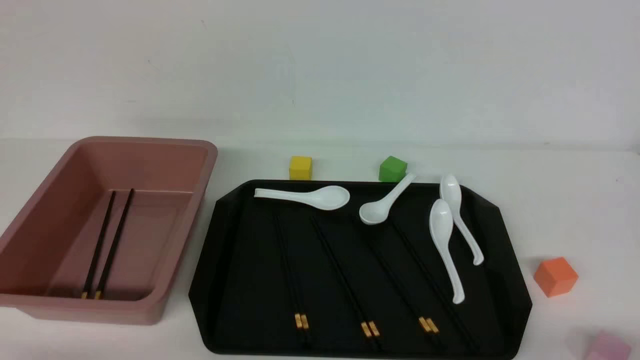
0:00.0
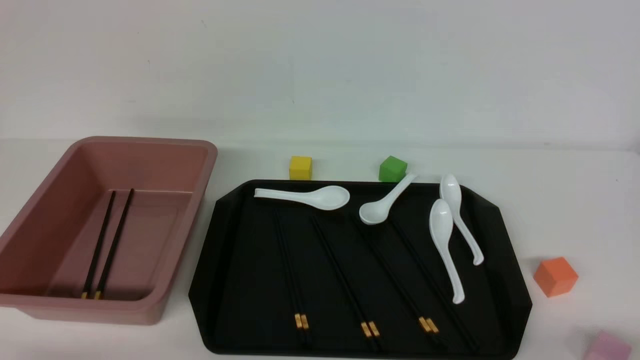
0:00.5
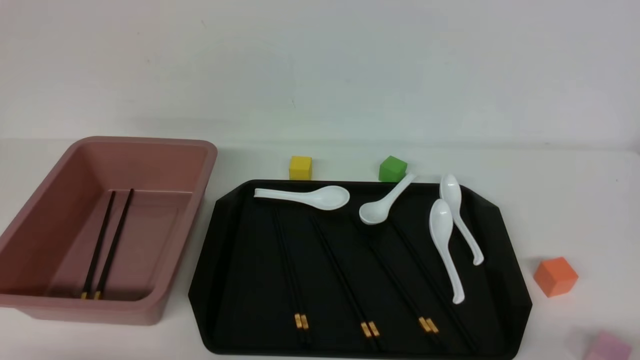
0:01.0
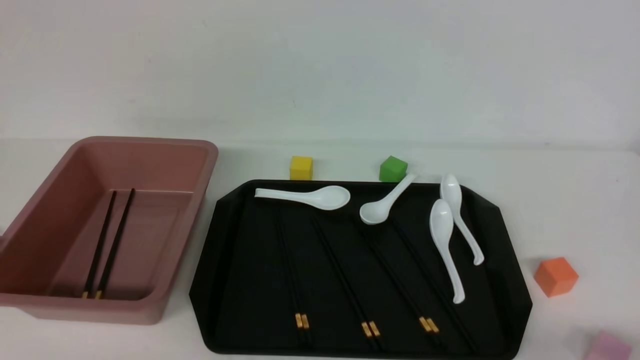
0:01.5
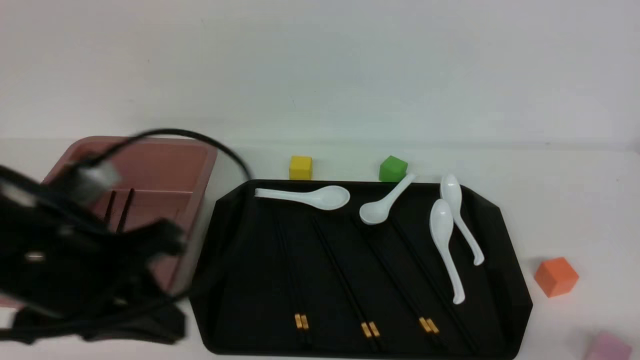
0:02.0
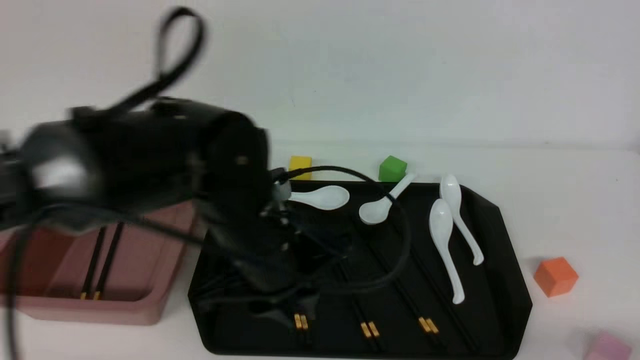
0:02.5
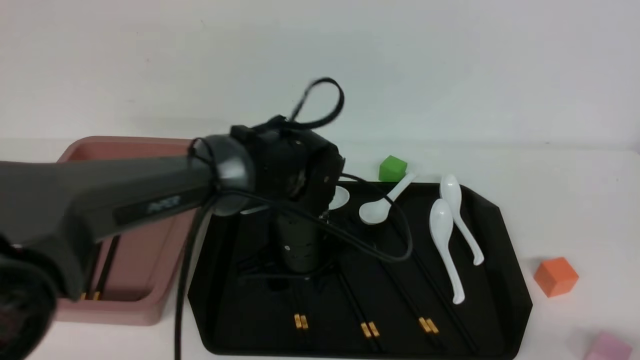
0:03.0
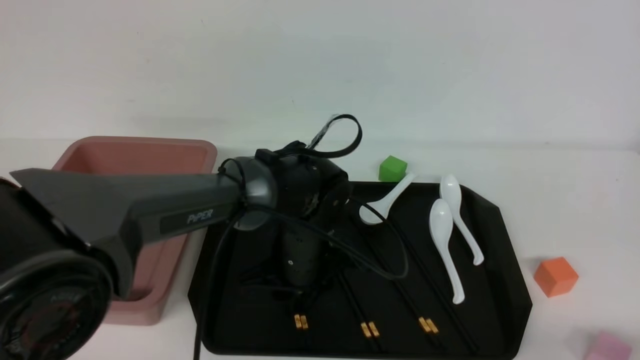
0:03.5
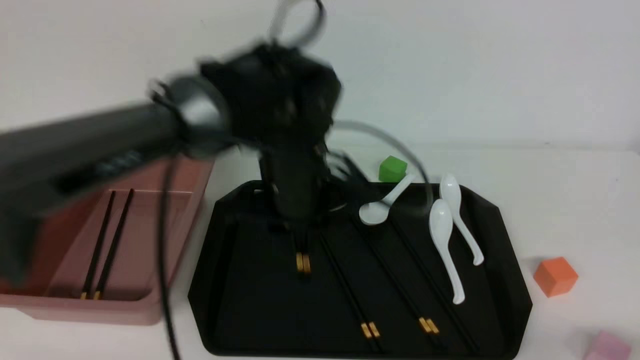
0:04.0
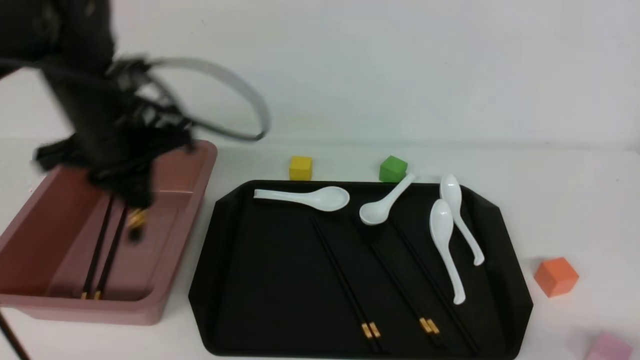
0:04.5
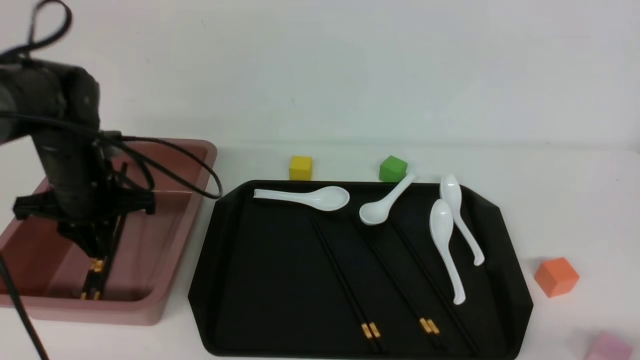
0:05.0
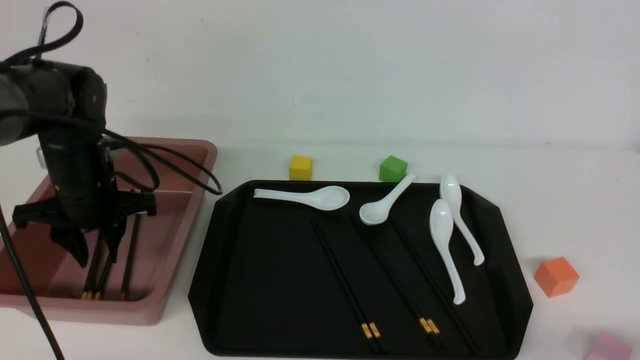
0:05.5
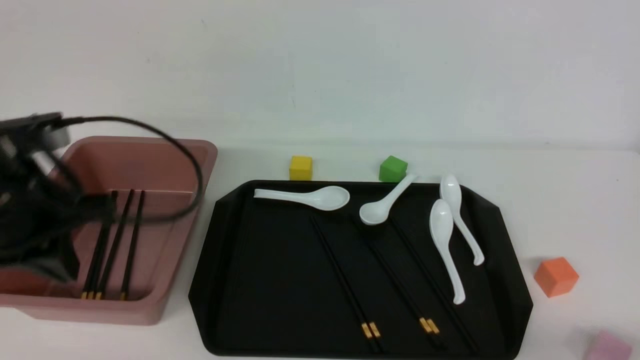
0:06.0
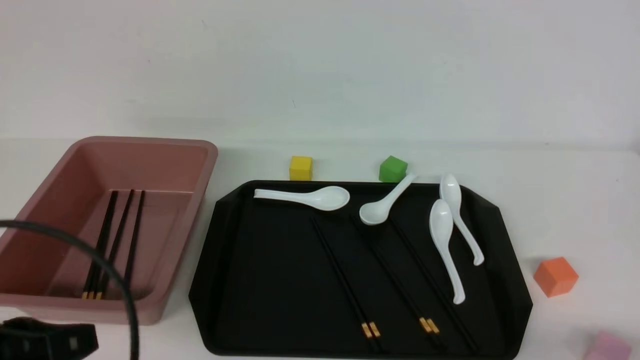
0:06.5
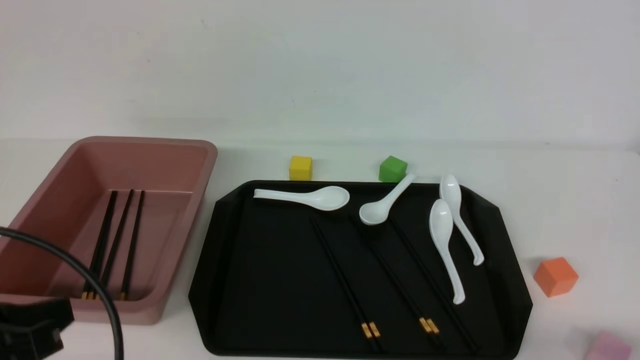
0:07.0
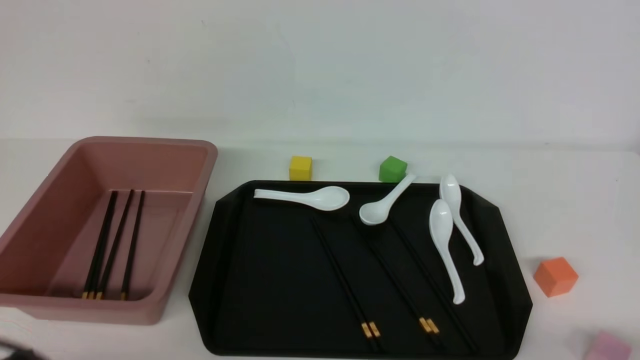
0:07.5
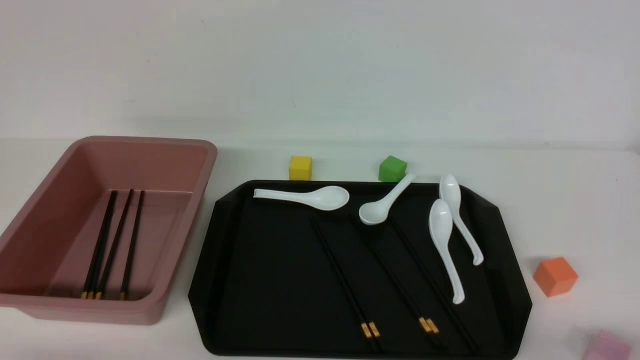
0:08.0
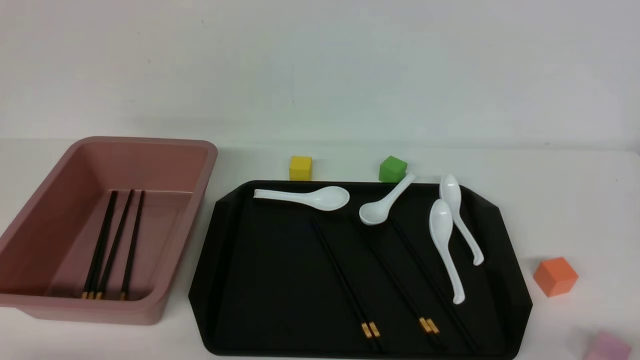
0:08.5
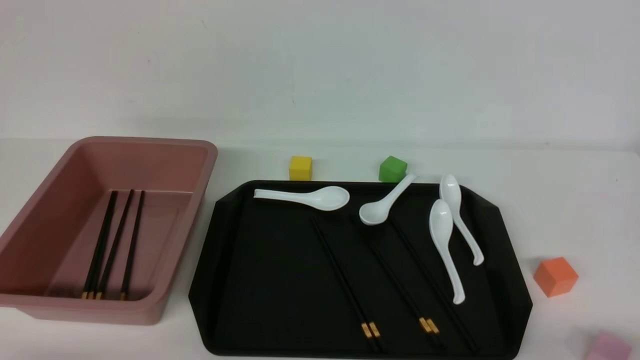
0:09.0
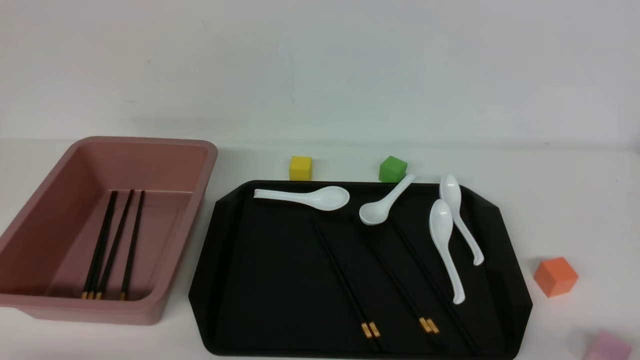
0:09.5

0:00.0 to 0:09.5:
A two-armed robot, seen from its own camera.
Step, 0:00.0 to 0:04.0: use the left arm to grab a pair of chopsticks.
Step, 0:04.5 to 0:05.5: use the left arm to put the chopsticks into the lunch box.
0:00.0 to 0:02.0: The left gripper travels forward, upward and to the right by approximately 20 cm.
0:02.0 to 0:04.0: The left gripper moves forward and to the right, some 20 cm, and opens.
0:04.0 to 0:05.5: The left gripper heads to the left, covering some 20 cm.
0:05.5 to 0:07.5: The left gripper goes about 30 cm backward, and closes.

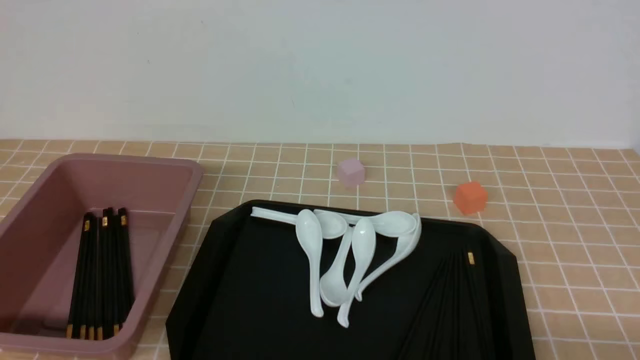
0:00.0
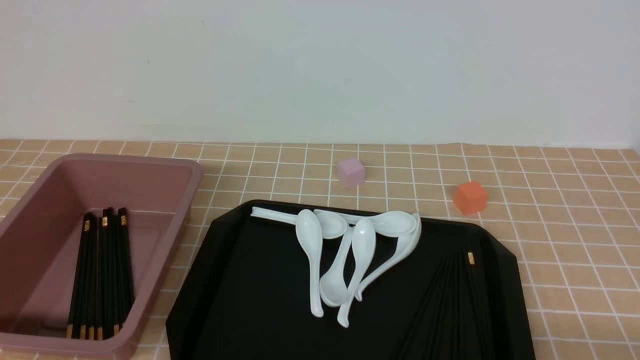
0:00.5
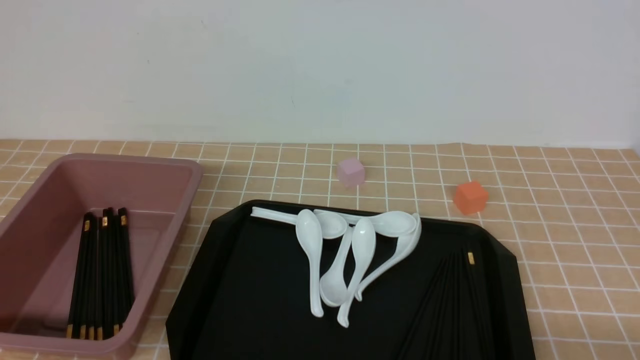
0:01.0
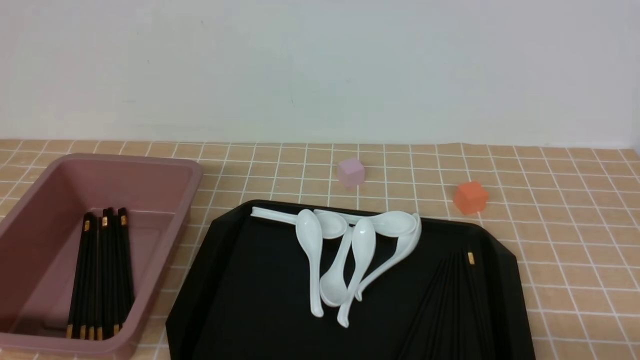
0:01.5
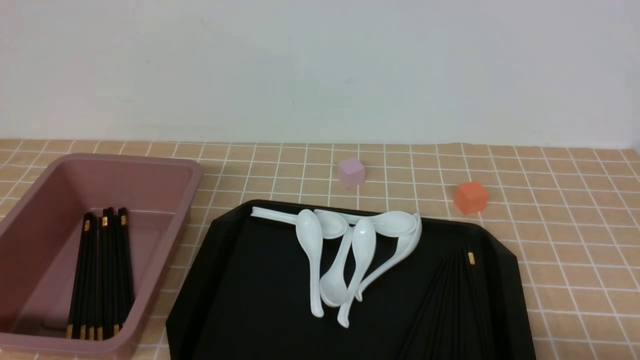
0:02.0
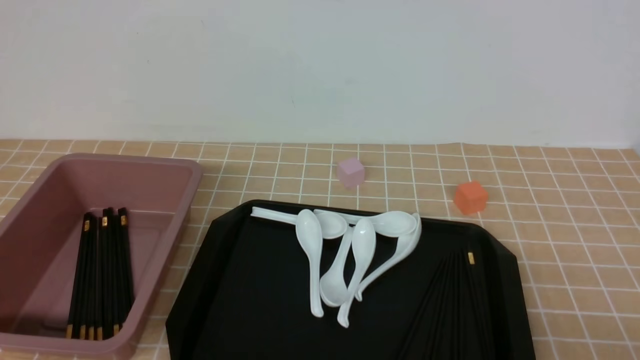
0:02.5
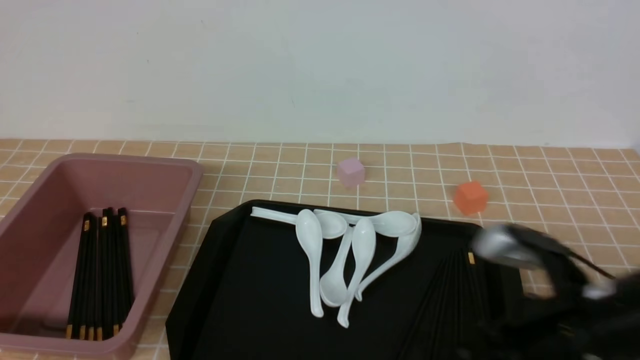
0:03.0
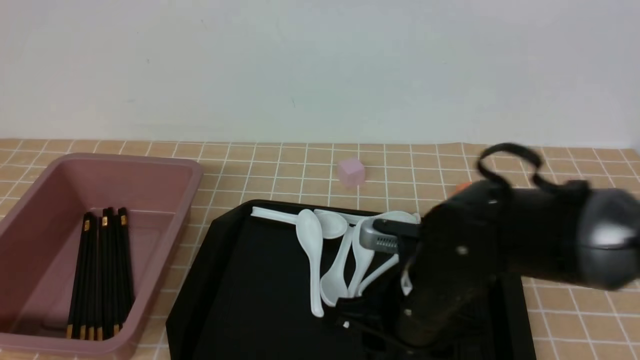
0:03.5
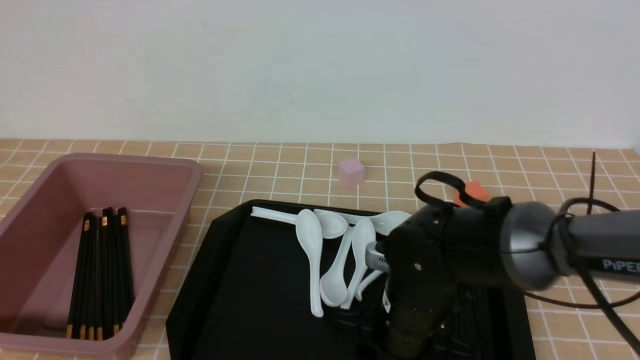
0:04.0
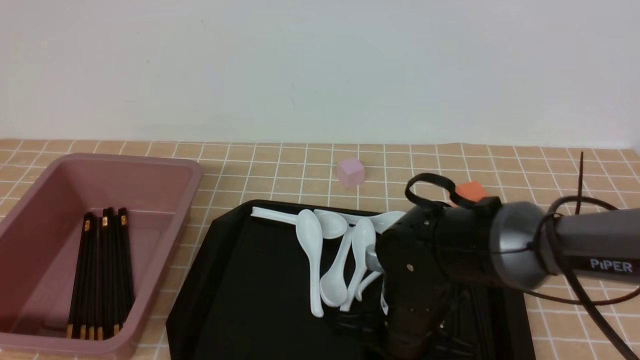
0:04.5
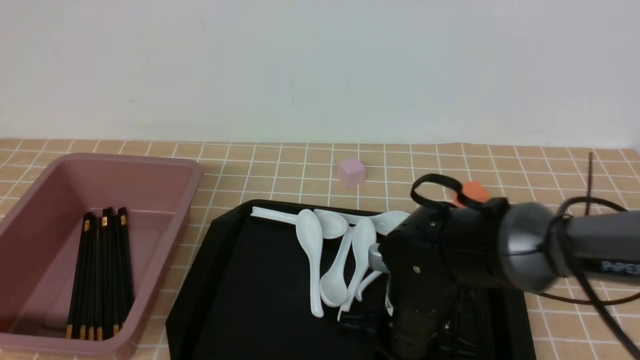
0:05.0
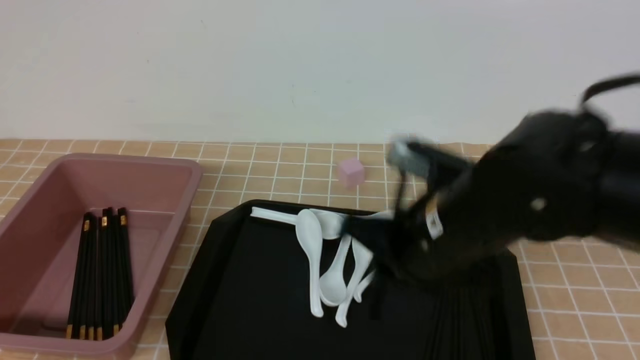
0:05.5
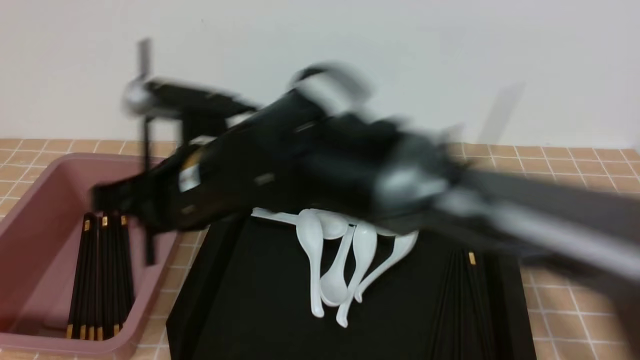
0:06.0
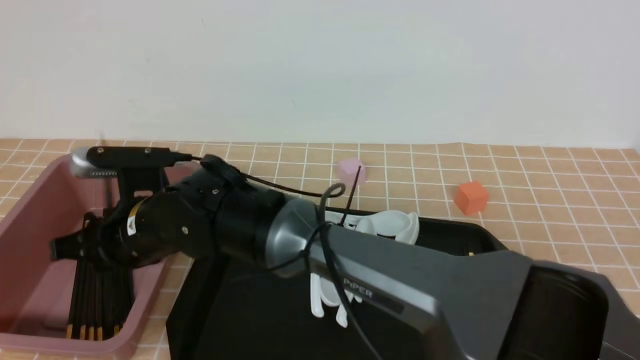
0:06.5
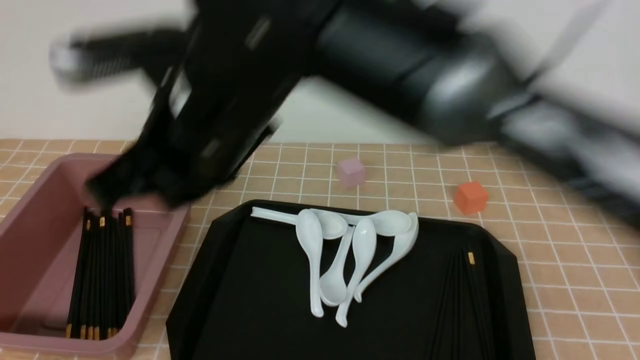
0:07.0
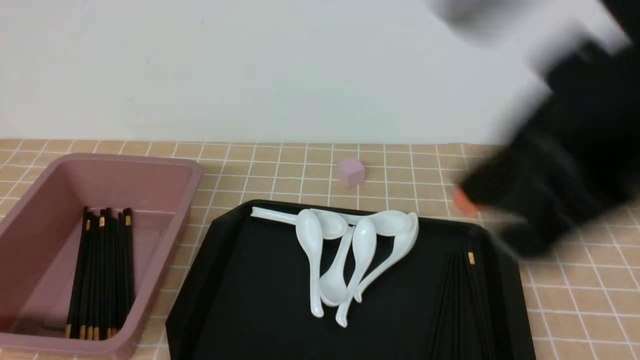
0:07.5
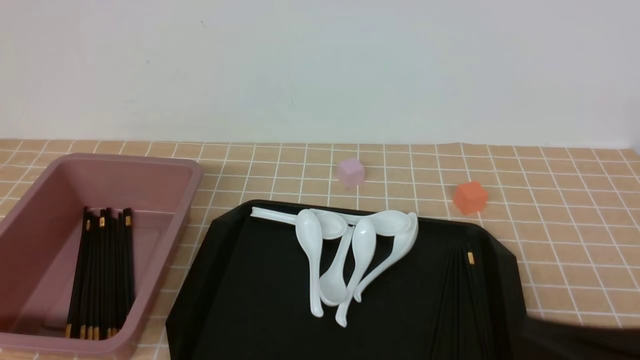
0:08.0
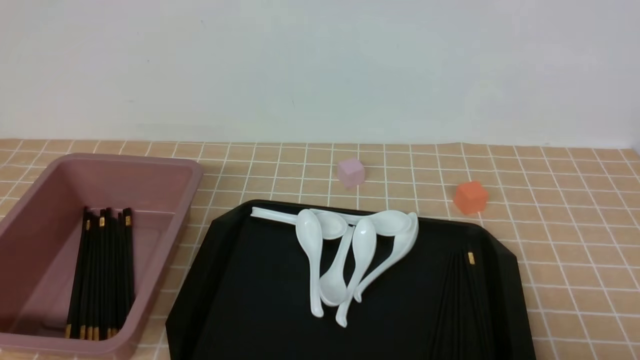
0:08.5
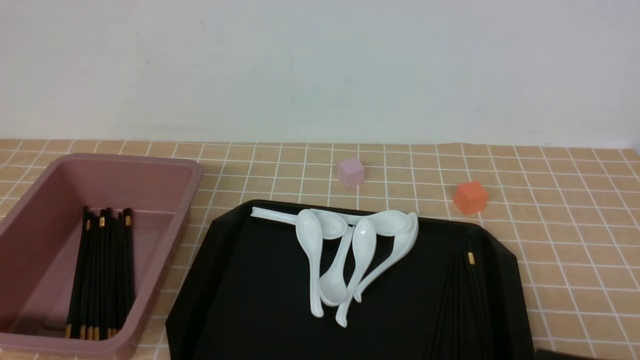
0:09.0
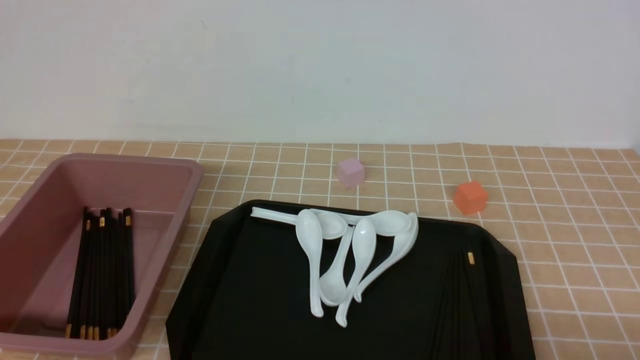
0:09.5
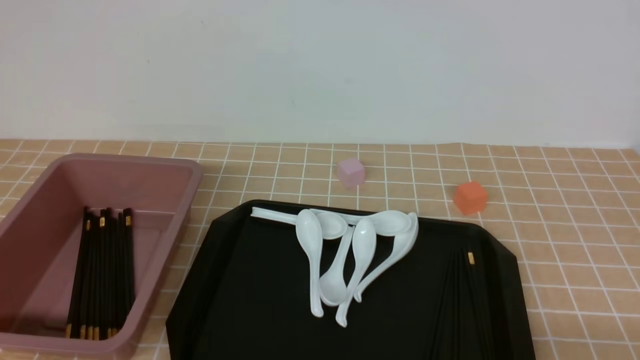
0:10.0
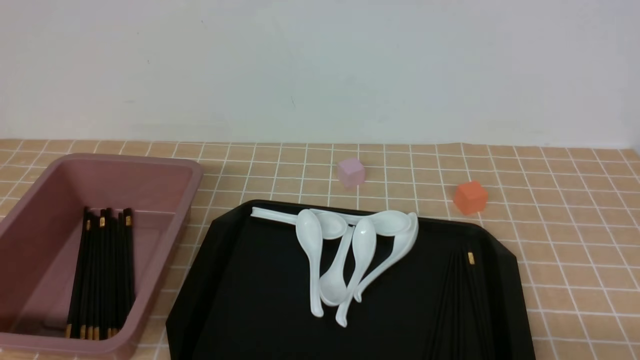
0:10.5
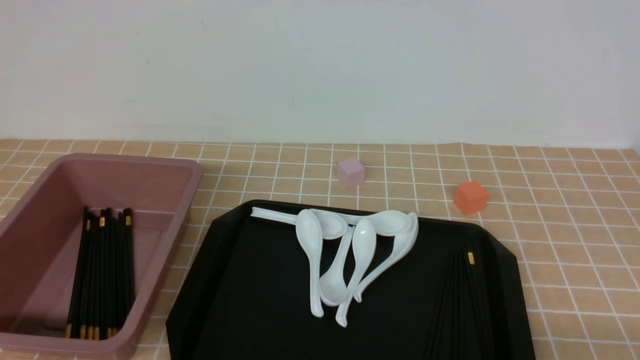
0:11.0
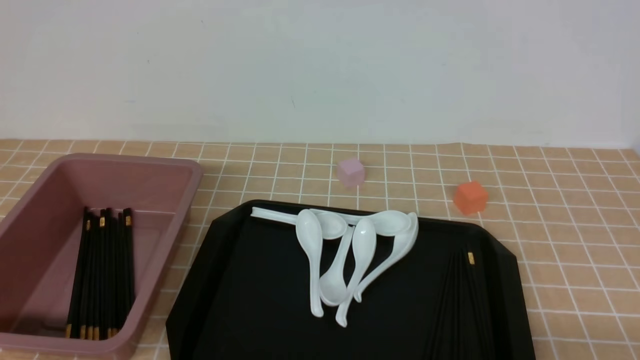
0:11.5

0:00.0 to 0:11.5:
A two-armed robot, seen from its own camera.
Step, 0:00.0 to 0:05.0: use the right arm to grab a pair of chopsticks.
Step, 0:05.5 to 0:06.5: use the right arm to put the chopsticks into the lunch box.
0:02.0 to 0:04.0: The right gripper heads to the left and forward, covering roughly 30 cm, and opens.
0:04.0 to 0:06.0: The right gripper heads to the left and upward, covering some 20 cm, and closes its fingers.
0:06.0 to 0:07.5: The right gripper moves to the right, backward and upward, roughly 30 cm.
0:07.5 to 0:09.5: The right gripper shifts roughly 30 cm downward and to the right.
